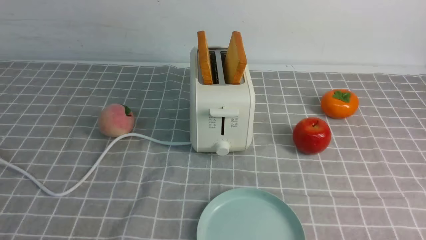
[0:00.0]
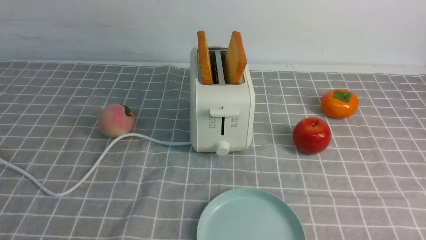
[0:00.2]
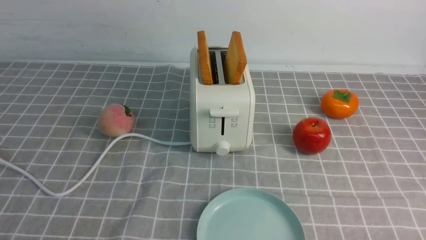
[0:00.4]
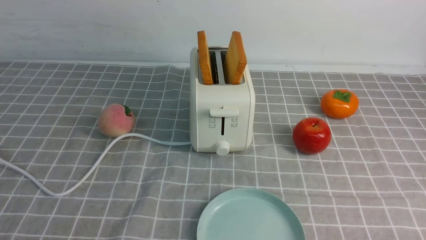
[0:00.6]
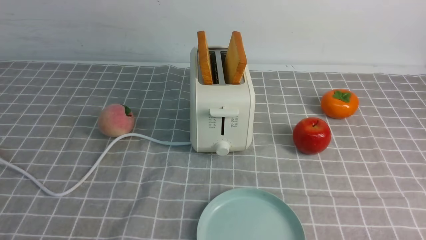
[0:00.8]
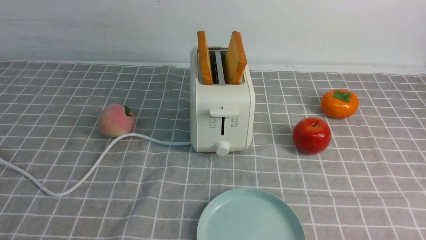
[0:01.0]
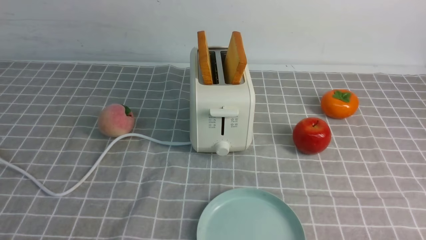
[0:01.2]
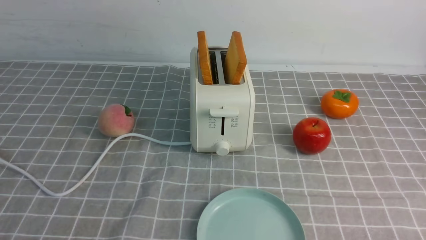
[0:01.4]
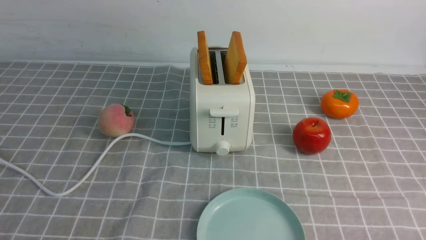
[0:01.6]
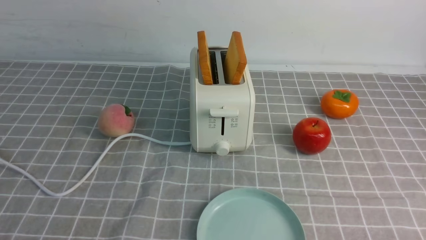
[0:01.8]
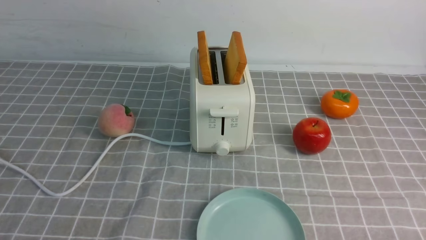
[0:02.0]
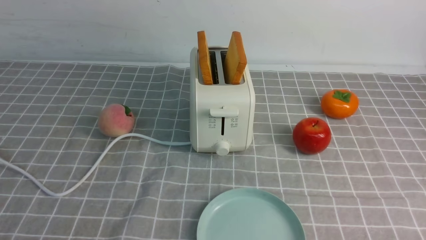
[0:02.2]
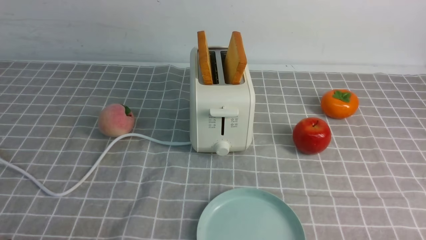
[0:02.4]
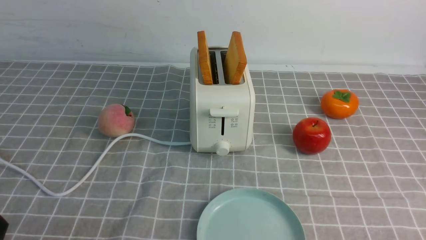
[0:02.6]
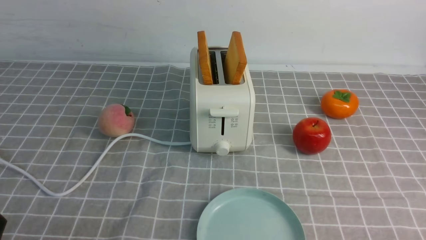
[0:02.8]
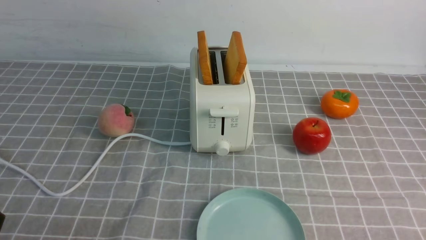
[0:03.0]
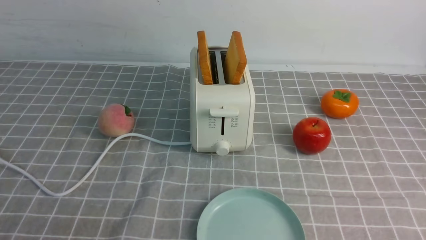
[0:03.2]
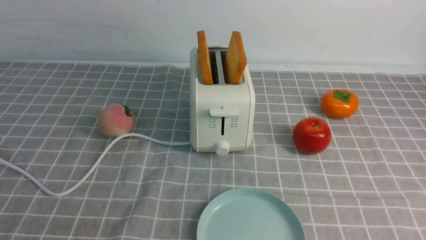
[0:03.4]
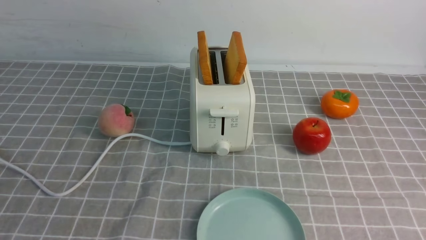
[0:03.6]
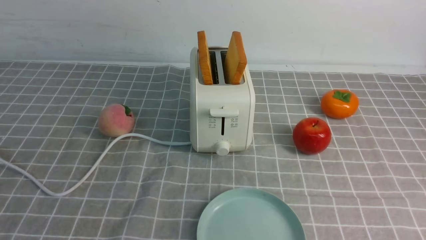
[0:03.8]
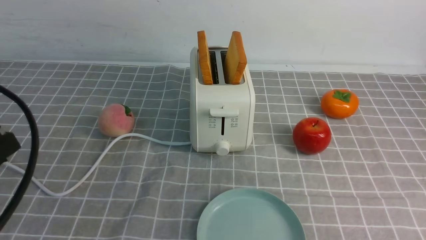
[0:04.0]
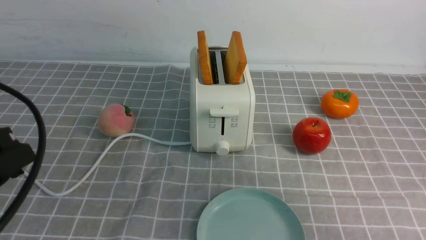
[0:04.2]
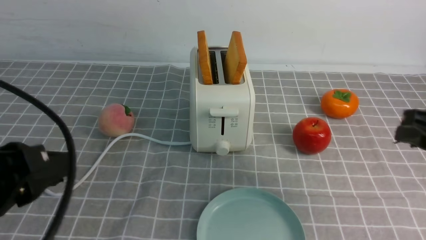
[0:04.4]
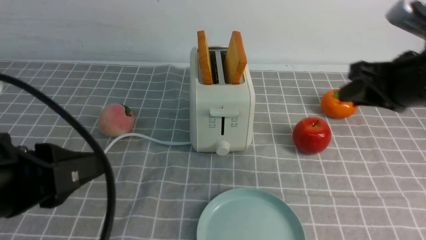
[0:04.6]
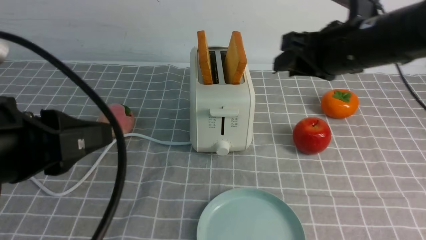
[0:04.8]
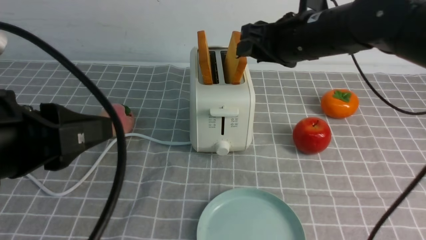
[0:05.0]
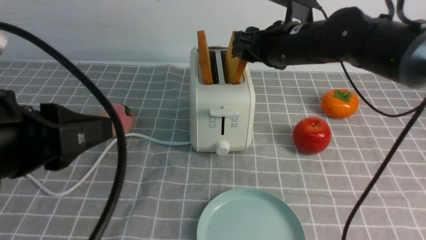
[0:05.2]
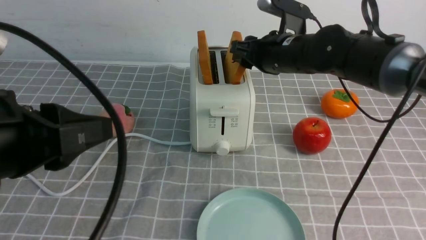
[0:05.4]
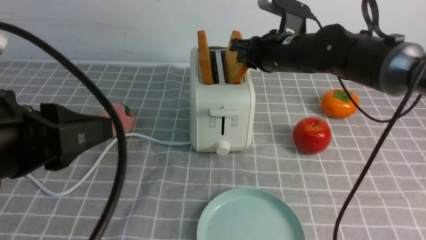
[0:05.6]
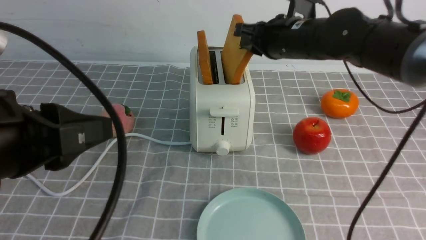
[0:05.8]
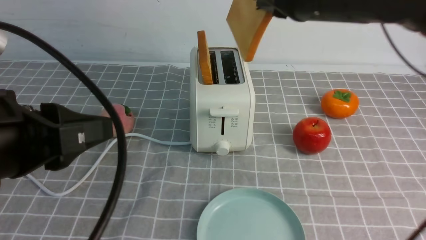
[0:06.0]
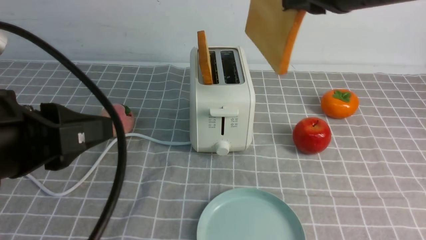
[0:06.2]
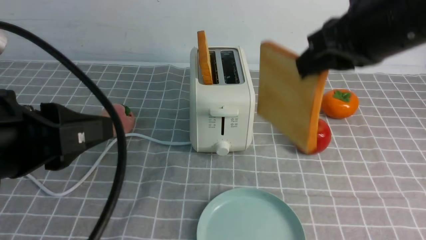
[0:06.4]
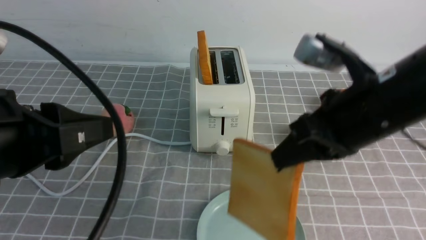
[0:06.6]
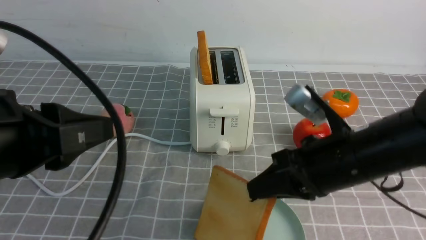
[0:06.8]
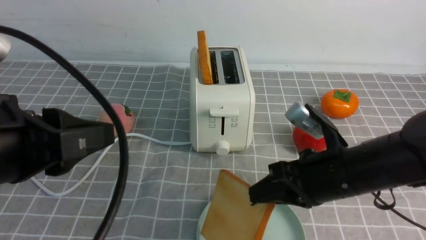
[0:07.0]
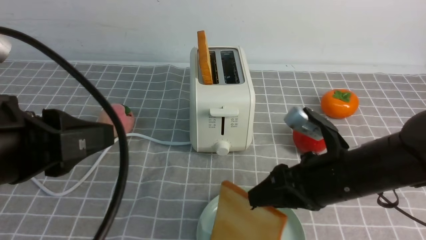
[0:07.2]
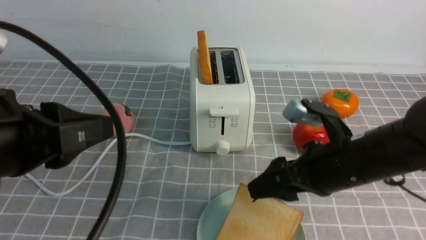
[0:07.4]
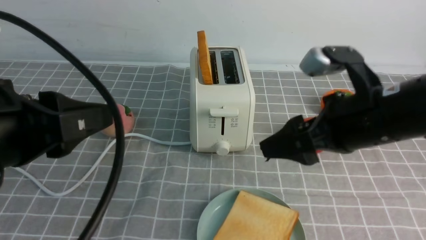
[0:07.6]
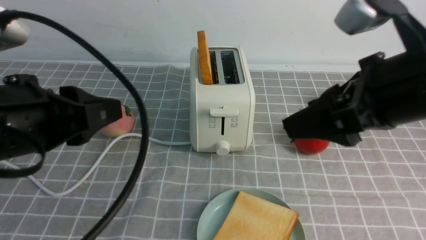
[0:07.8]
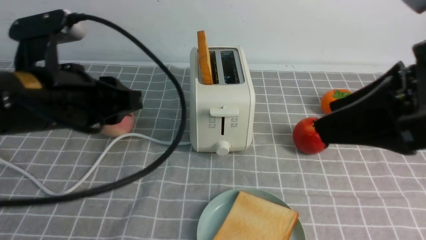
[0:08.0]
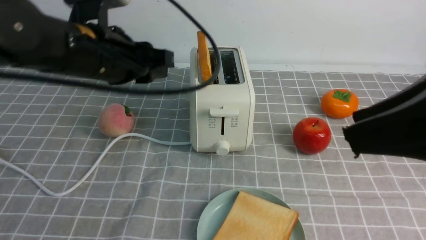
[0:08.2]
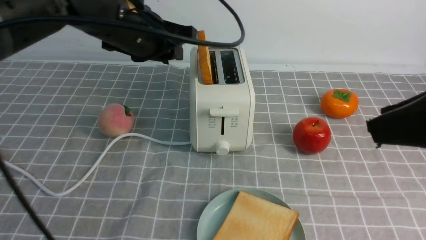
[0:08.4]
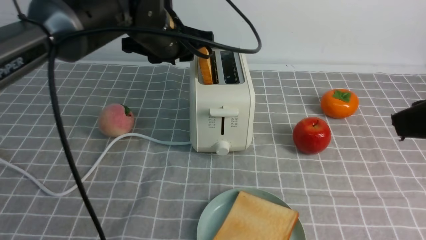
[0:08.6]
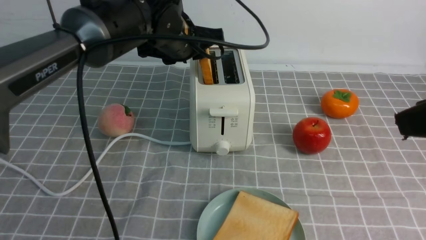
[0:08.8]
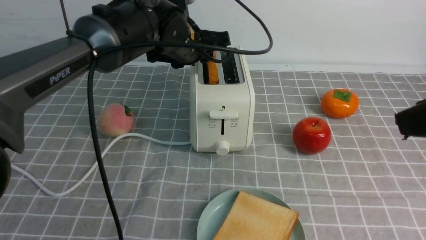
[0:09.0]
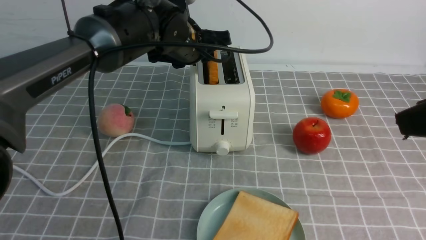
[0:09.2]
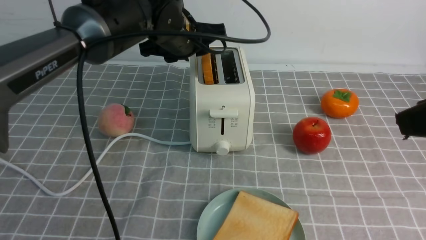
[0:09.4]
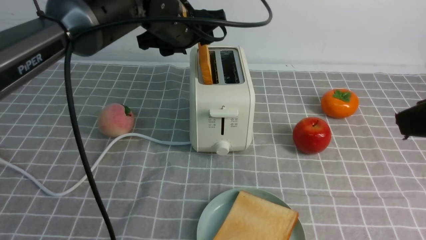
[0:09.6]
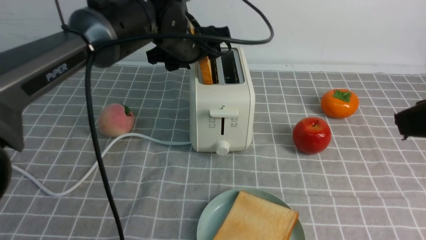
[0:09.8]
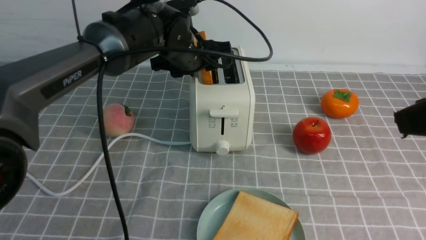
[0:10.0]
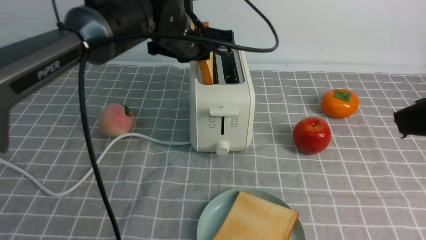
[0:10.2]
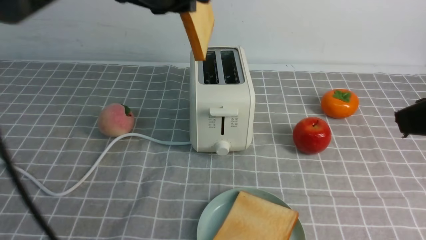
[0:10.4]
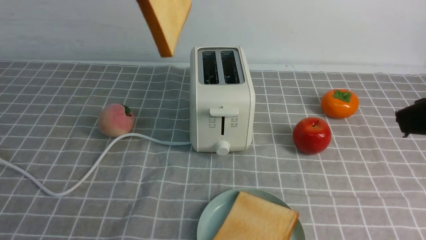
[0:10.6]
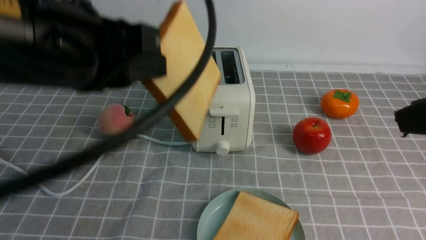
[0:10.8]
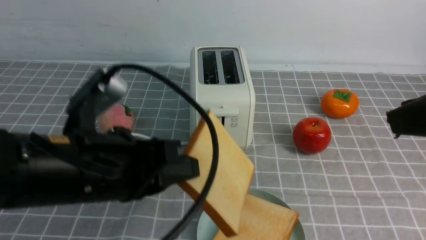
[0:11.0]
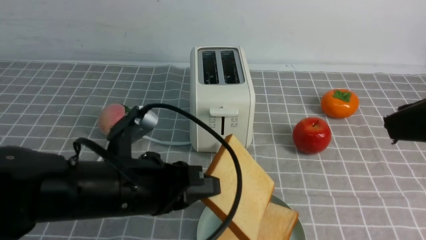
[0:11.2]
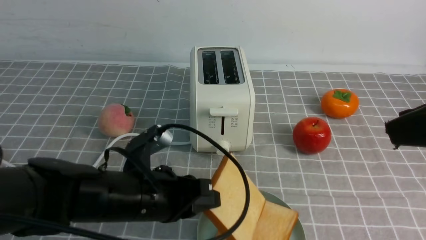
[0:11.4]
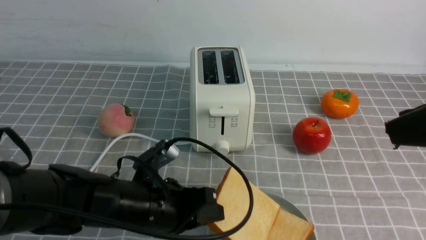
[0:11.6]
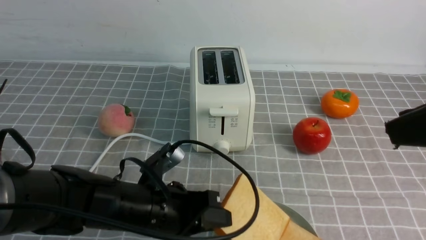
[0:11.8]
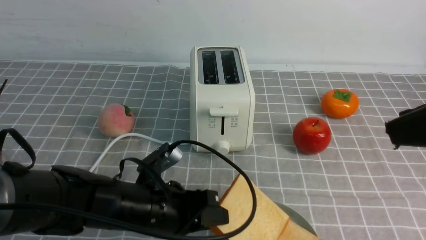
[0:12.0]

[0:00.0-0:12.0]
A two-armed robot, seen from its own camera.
Task of the whole recording: take toasted bread from bread machine on grey coffee table place on plate.
Step, 0:00.0 to 0:05.8: use the right arm to take out a slice of bread.
Step, 0:06.0 to 0:07.4: use the right arm to put a slice of bread into the plate.
Step, 0:07.8 to 0:10.2: use the left arm to take out a slice of bread.
0:00.0 to 0:01.6: The two grippers keep their place.
0:03.0 to 0:04.4: The left gripper shifts some 15 cm upward and forward. The right gripper heads forward and upward, covering roughly 20 cm.
0:04.4 to 0:06.0: The right gripper heads to the left, forward and upward, covering some 20 cm.
0:06.0 to 0:07.6: The right gripper heads backward and downward, covering approximately 15 cm, and opens up.
0:07.6 to 0:09.0: The left gripper heads forward and to the right, covering approximately 30 cm; the right gripper moves upward, backward and to the right, some 15 cm, and closes its fingers.
0:09.0 to 0:10.4: The left gripper travels upward and backward by approximately 15 cm, and closes its fingers.
0:10.4 to 0:12.0: The left gripper heads downward and backward, covering some 30 cm.

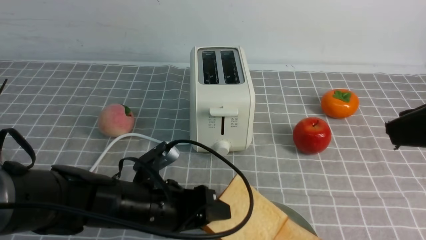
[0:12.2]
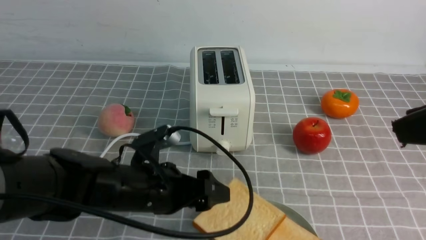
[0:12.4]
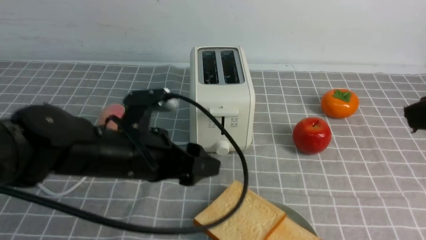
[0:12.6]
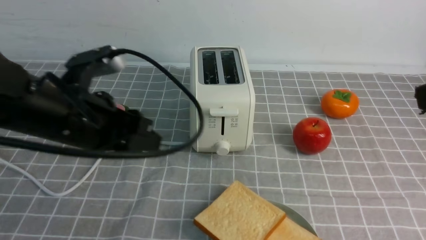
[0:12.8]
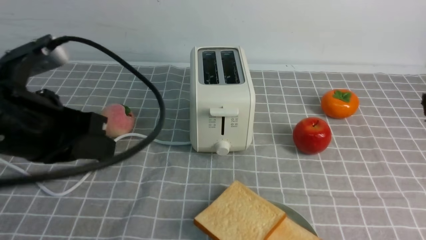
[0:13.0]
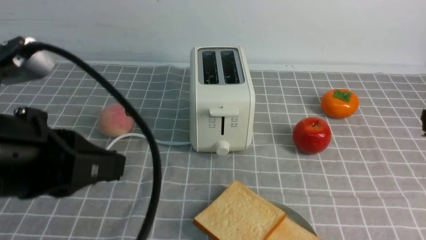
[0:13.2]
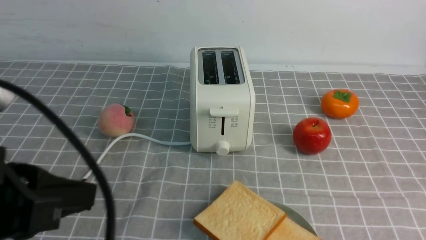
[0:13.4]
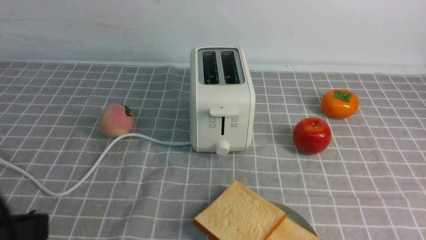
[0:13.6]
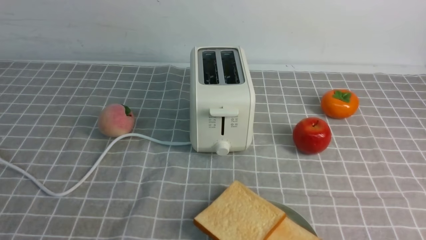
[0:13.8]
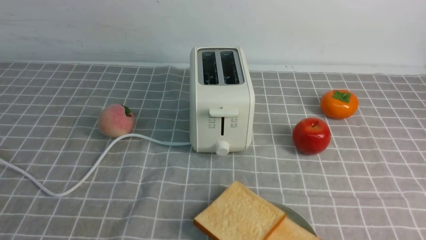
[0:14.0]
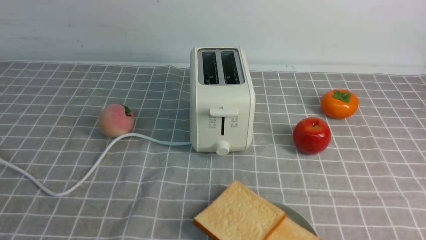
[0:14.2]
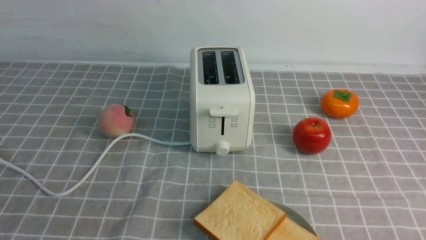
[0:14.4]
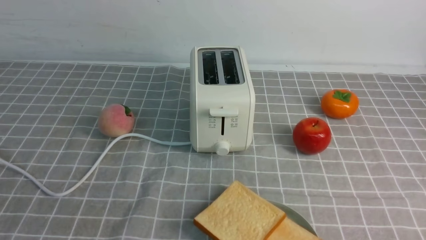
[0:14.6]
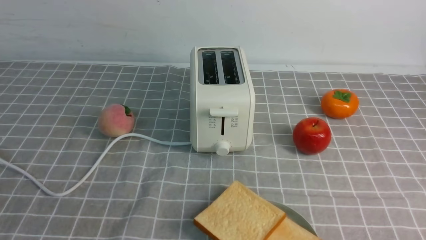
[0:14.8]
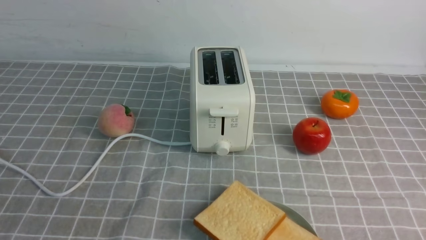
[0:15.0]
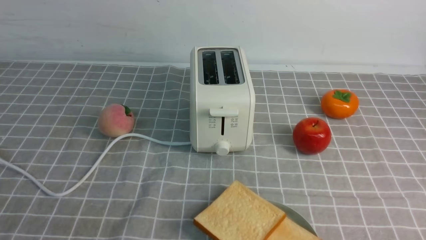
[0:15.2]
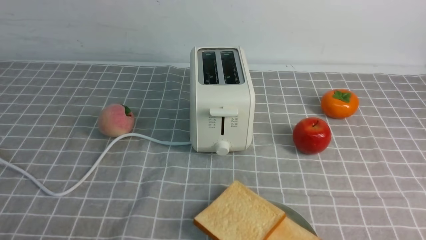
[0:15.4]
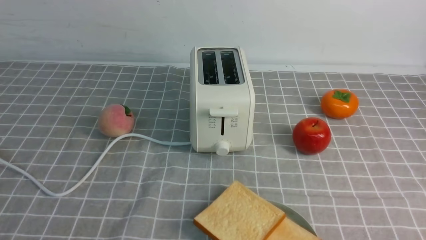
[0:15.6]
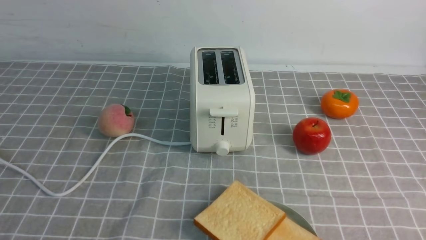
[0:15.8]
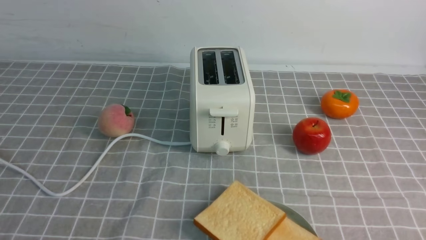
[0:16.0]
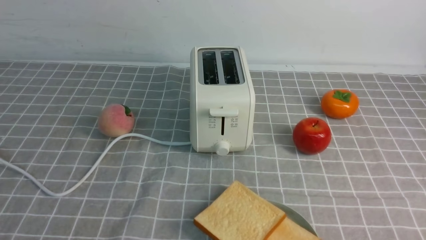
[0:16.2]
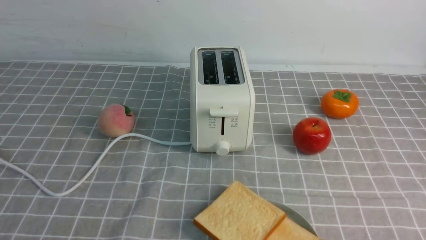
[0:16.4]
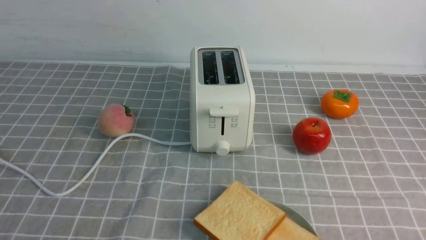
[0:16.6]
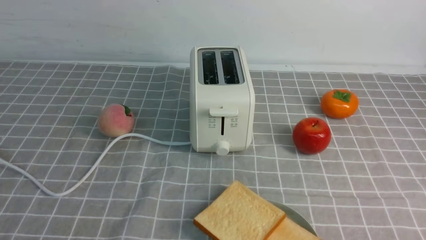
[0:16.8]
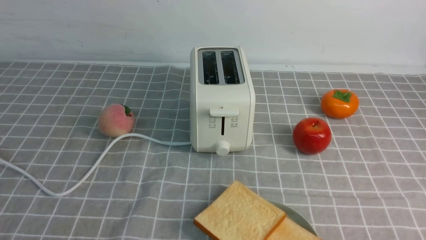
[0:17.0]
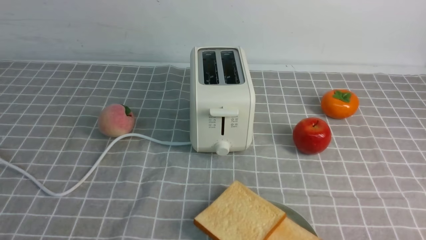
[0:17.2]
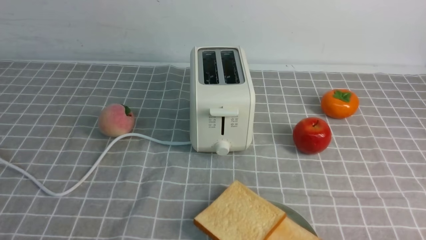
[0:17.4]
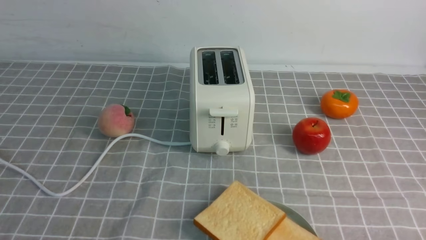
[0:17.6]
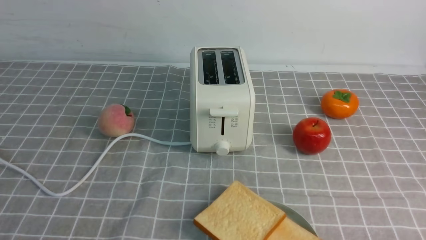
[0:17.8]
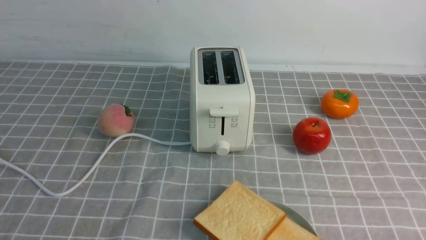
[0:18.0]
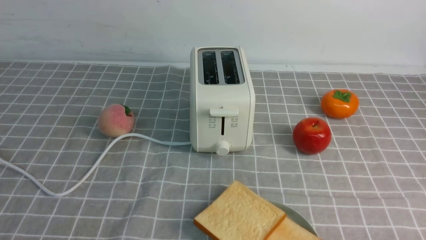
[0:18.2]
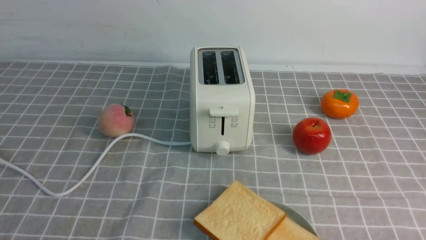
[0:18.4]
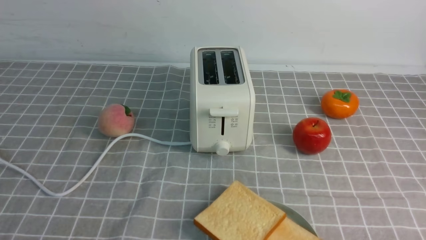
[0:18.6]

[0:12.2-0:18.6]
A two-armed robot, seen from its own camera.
Task of the whole recording: take toasted bread from bread machine on grey coffee table place on plate.
0:12.2 to 0:13.8: The left gripper travels backward, upward and to the left by roughly 30 cm, and closes up. The right gripper moves downward, backward and to the right, approximately 15 cm, and closes.
